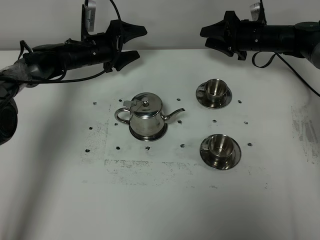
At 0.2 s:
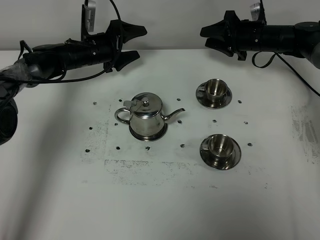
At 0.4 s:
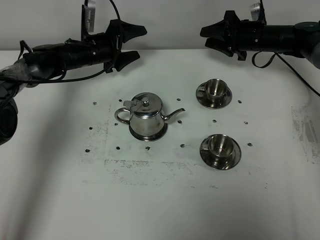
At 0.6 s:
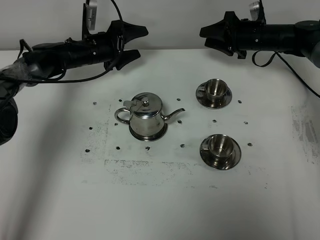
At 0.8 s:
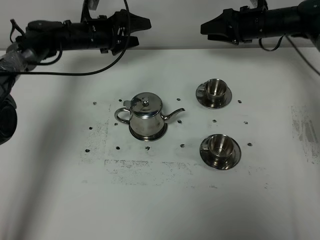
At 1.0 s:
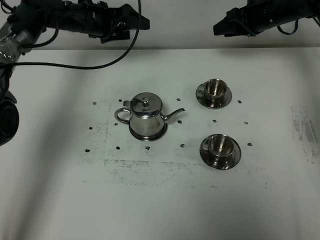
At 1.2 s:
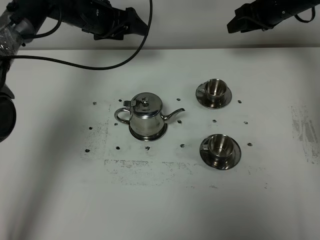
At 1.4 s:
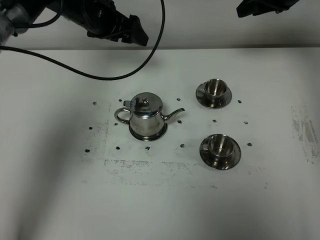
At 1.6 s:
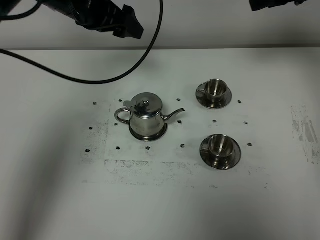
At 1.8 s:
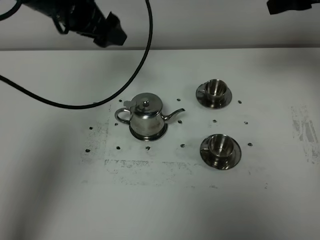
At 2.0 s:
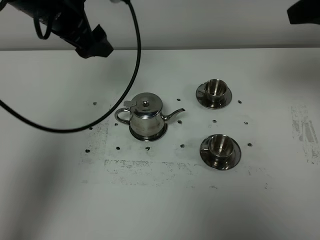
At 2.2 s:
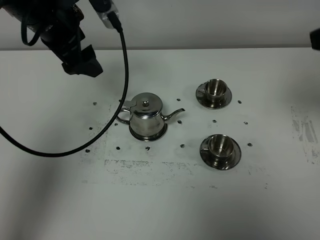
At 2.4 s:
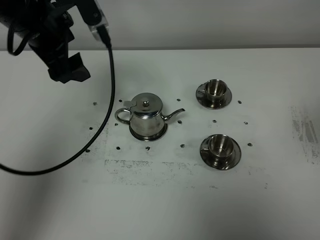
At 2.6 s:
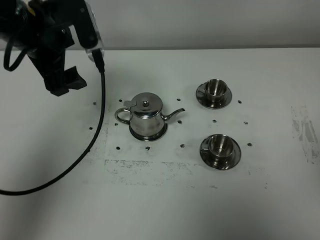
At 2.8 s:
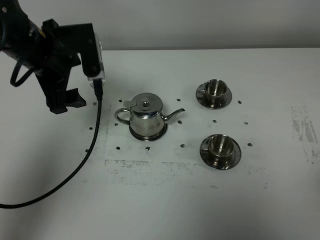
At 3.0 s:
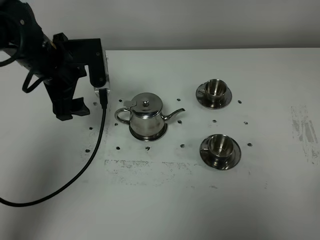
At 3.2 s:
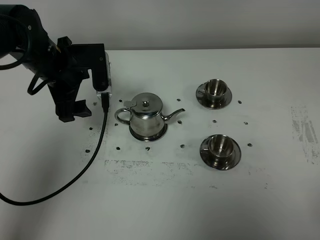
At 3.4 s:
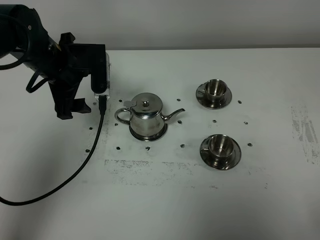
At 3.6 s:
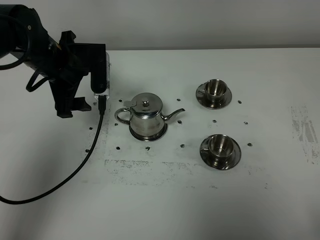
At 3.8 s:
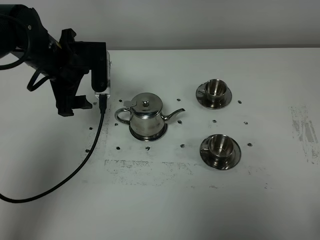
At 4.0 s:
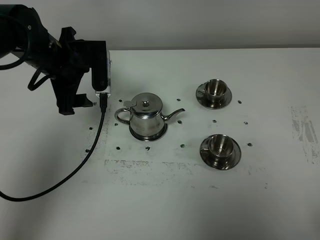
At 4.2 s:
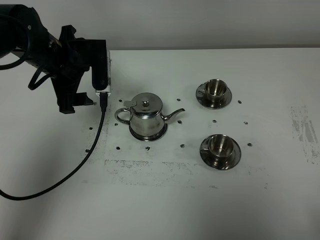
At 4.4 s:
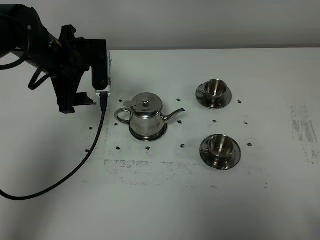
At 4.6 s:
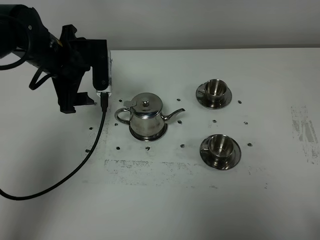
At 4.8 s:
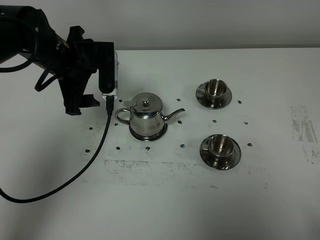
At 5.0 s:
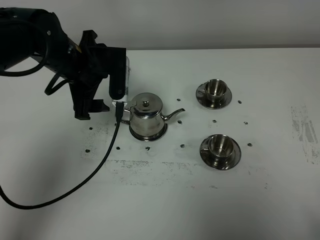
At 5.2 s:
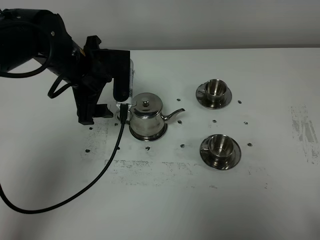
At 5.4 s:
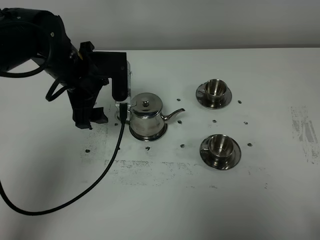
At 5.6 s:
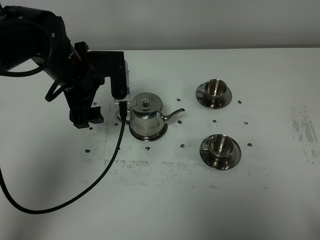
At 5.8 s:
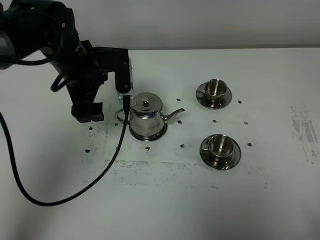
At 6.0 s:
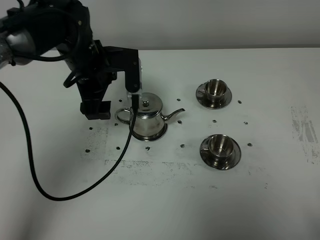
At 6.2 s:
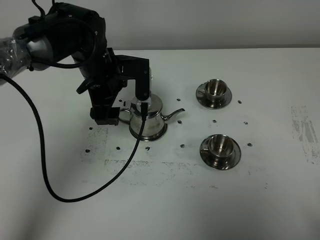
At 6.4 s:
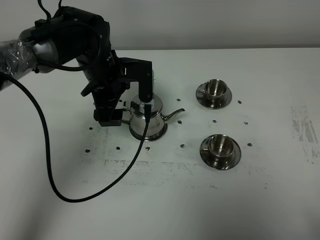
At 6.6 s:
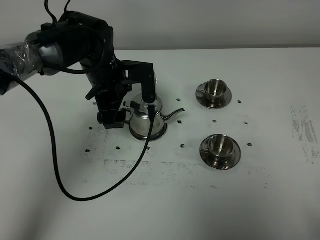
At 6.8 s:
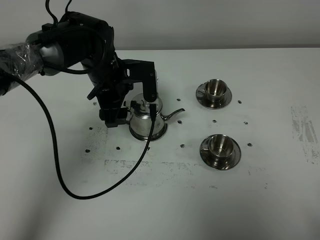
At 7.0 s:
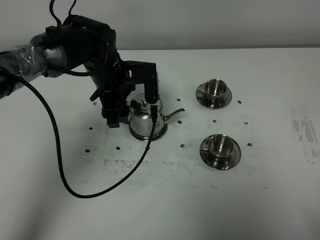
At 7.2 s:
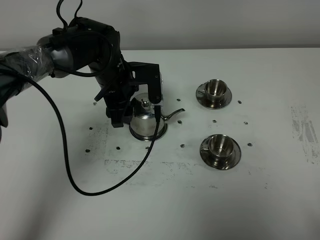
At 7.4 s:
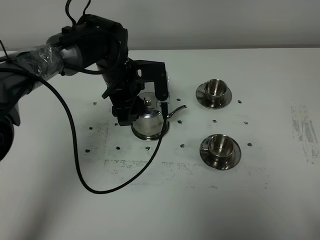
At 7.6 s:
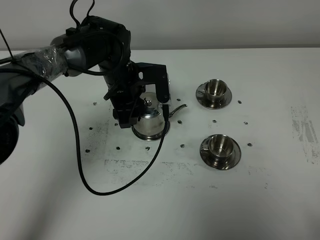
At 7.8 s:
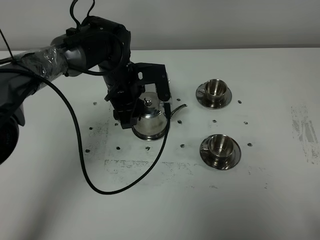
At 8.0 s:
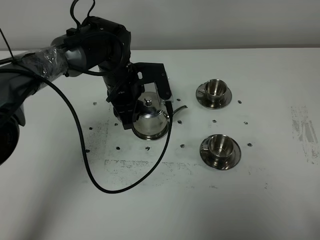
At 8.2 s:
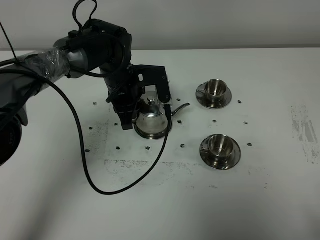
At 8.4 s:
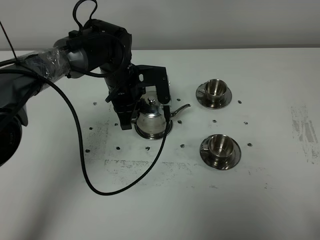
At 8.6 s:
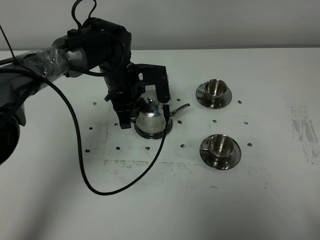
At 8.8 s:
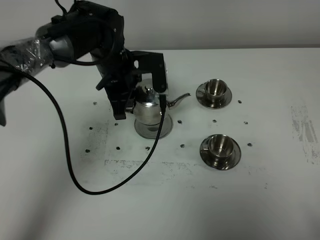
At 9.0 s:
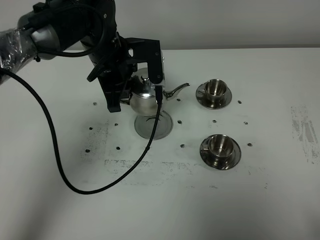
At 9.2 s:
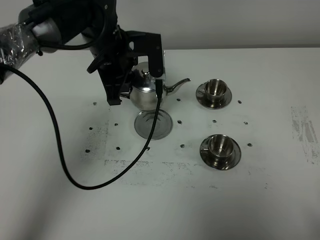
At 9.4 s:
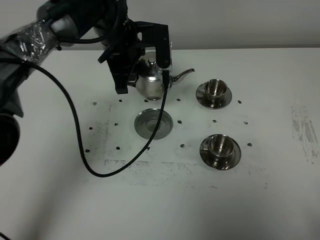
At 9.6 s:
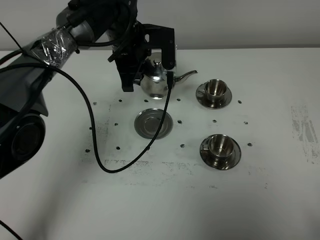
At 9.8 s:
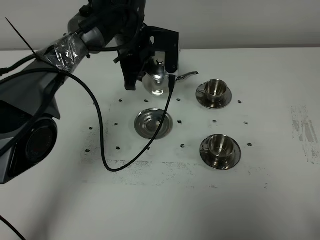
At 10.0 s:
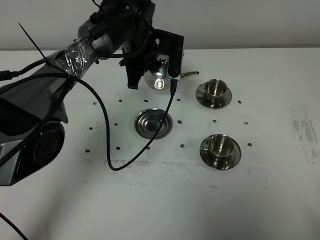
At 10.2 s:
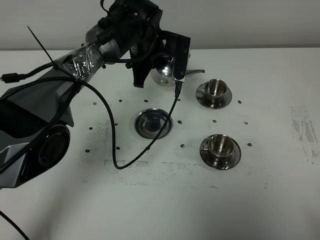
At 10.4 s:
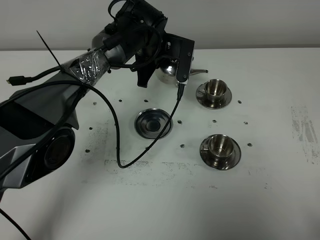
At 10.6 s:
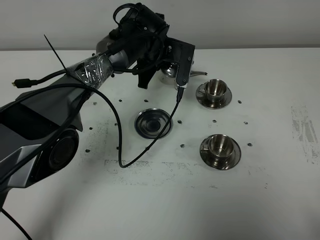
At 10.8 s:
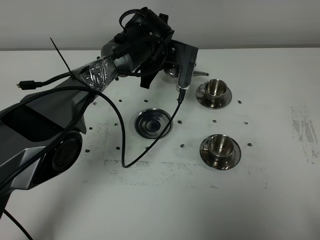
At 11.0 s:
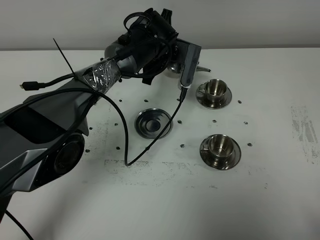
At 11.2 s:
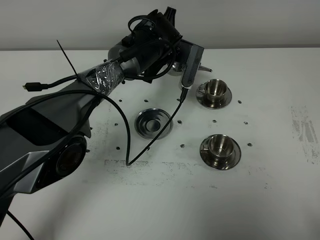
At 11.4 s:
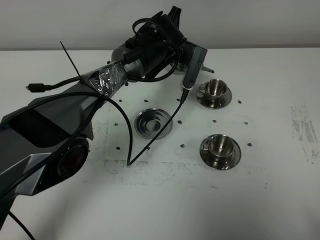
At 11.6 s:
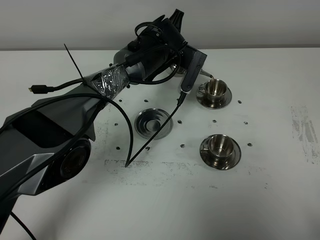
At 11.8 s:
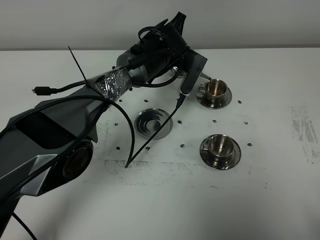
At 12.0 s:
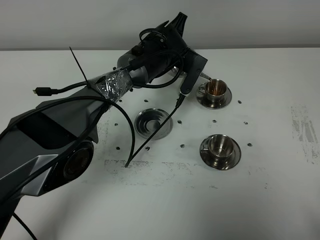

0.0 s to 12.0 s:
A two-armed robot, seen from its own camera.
Task of the whole recording: grasp the stainless steel teapot and pour the tea into the two stainless steel teacups one by one, put the stainless steel teapot back in its original place.
Step, 0.0 to 8.6 s: Pick up the teapot with the left gripper.
0.0 to 1.6 s: Both grippers travel together upward and backward, some 25 cm.
1.6 to 3.0 s: The left gripper moves backward and downward, roughly 10 cm; the right gripper heads backward, covering approximately 40 cm.
4.4 to 6.0 s: The left gripper shifts about 5 cm to the right.
6.0 to 7.6 s: The left gripper is displaced downward by some 5 cm.
7.6 to 9.0 s: The left gripper goes about 5 cm upward, and closes.
9.0 to 10.4 s: The left gripper shifts some 10 cm forward and to the right.

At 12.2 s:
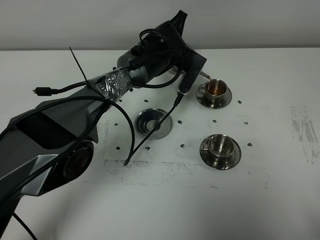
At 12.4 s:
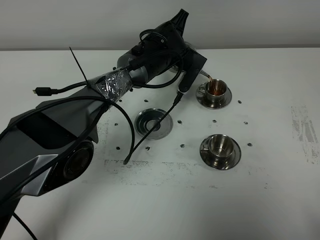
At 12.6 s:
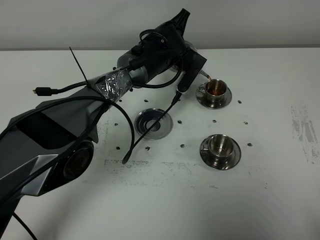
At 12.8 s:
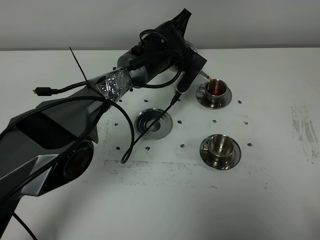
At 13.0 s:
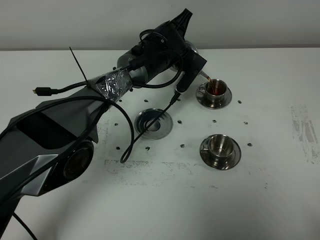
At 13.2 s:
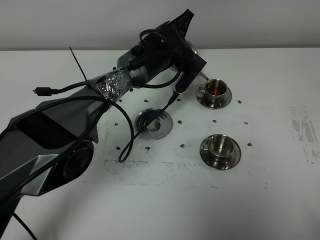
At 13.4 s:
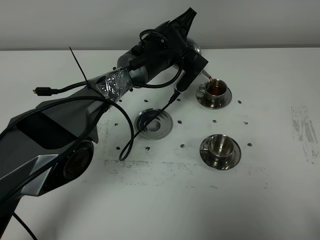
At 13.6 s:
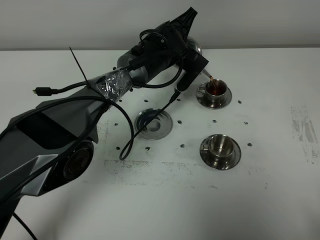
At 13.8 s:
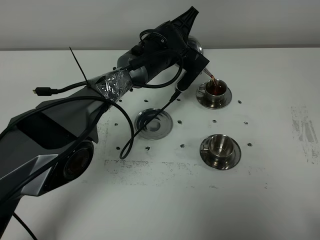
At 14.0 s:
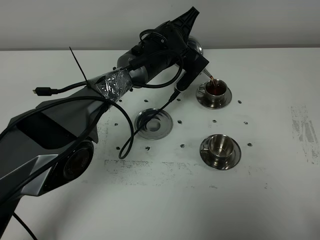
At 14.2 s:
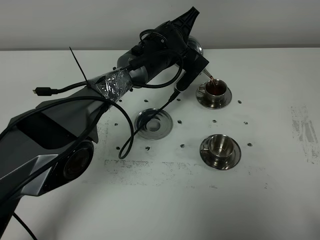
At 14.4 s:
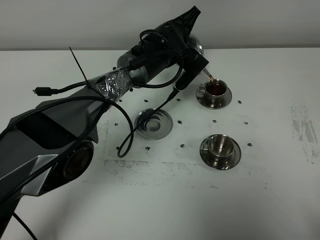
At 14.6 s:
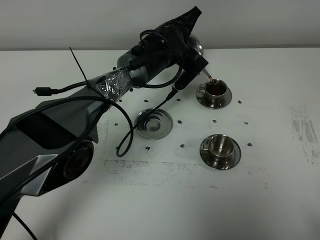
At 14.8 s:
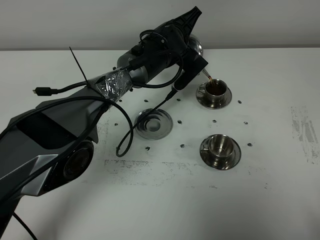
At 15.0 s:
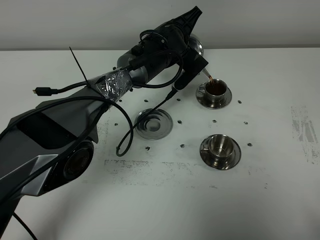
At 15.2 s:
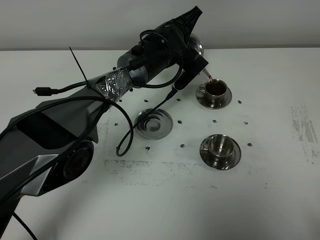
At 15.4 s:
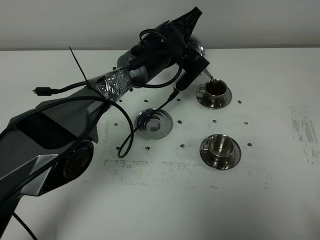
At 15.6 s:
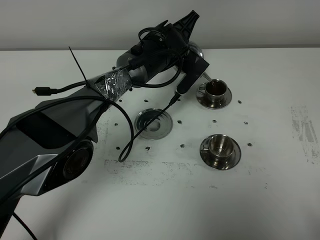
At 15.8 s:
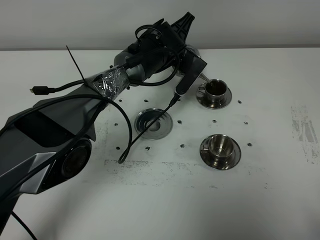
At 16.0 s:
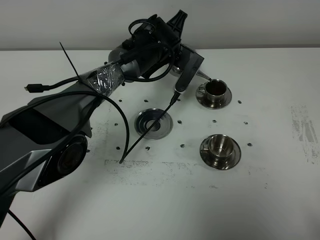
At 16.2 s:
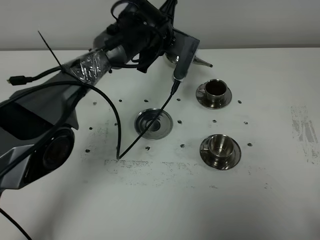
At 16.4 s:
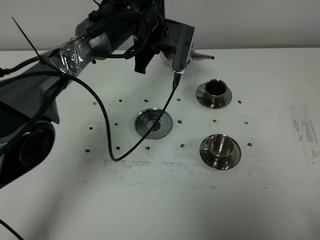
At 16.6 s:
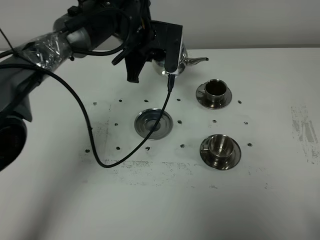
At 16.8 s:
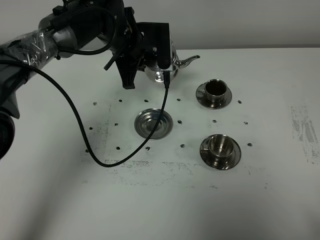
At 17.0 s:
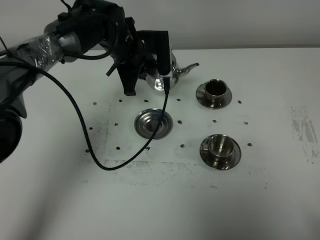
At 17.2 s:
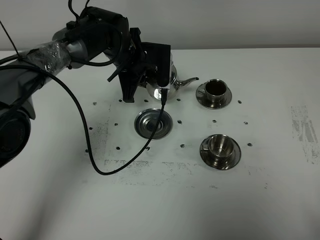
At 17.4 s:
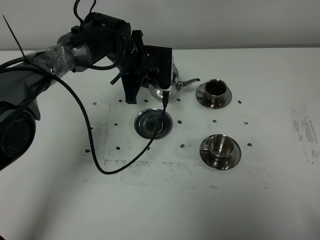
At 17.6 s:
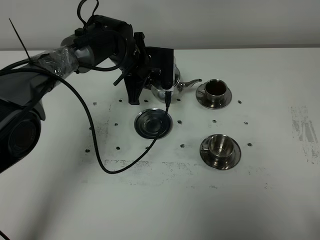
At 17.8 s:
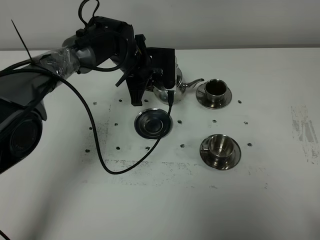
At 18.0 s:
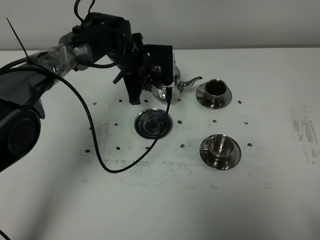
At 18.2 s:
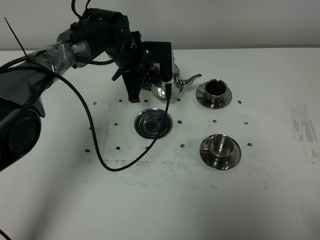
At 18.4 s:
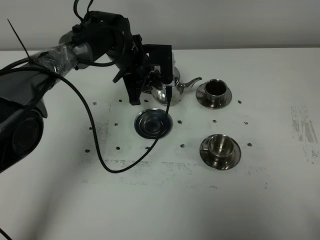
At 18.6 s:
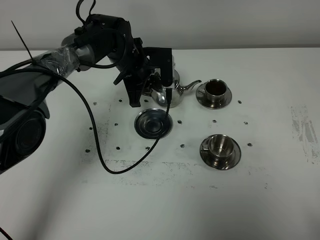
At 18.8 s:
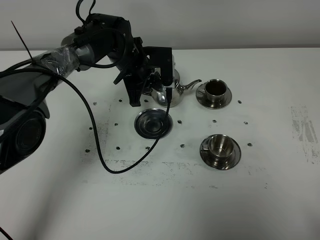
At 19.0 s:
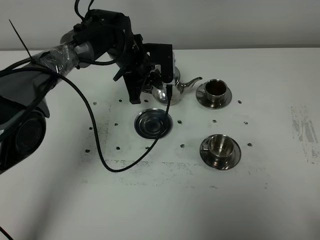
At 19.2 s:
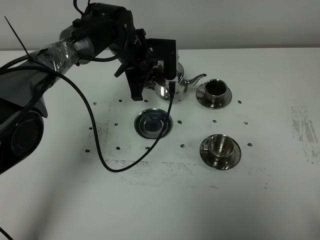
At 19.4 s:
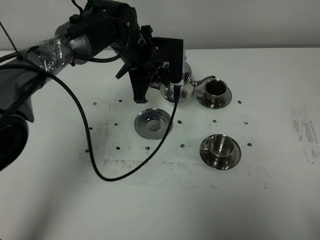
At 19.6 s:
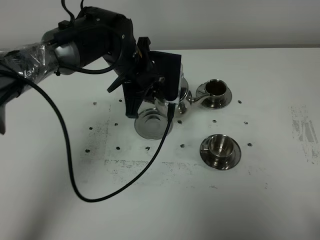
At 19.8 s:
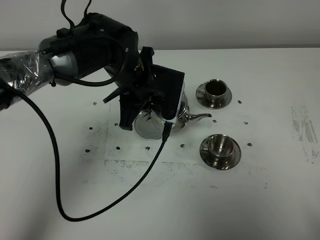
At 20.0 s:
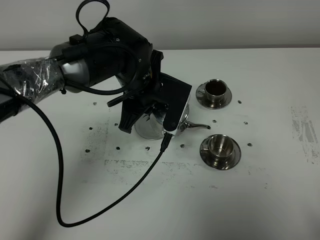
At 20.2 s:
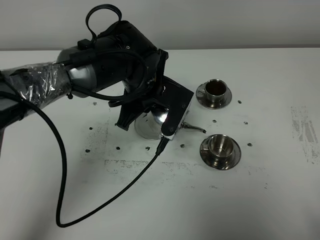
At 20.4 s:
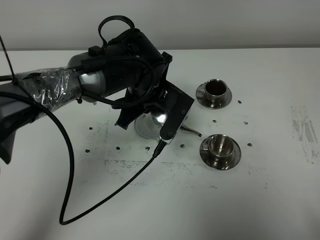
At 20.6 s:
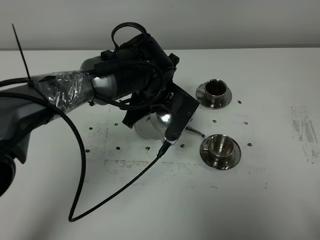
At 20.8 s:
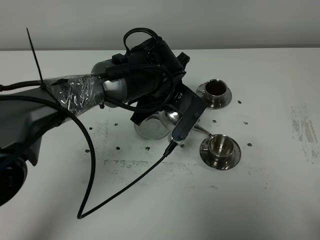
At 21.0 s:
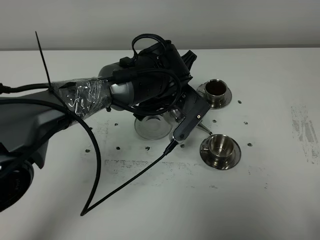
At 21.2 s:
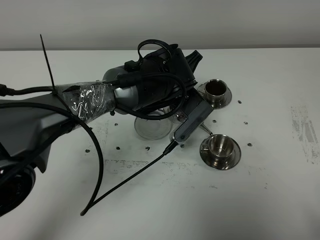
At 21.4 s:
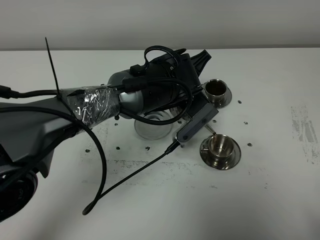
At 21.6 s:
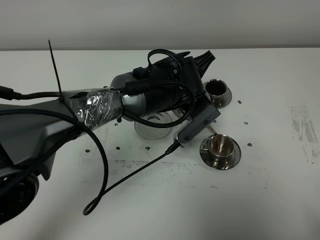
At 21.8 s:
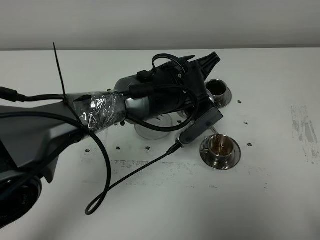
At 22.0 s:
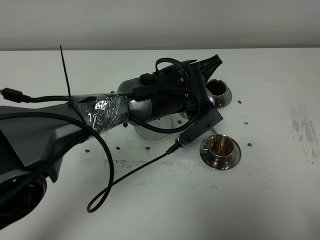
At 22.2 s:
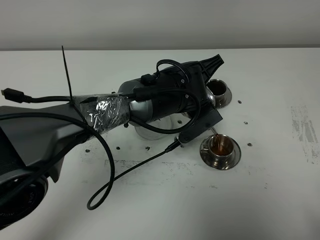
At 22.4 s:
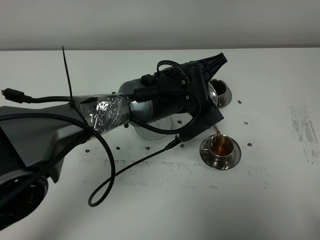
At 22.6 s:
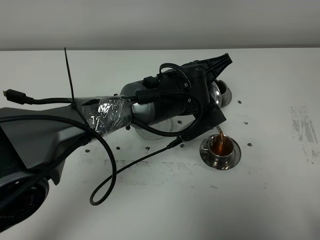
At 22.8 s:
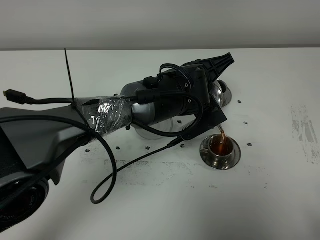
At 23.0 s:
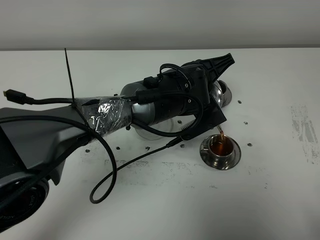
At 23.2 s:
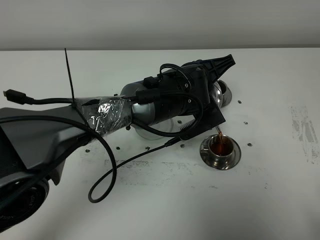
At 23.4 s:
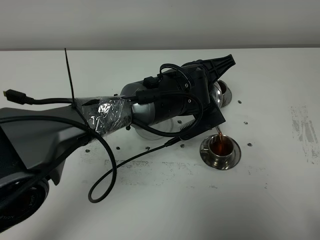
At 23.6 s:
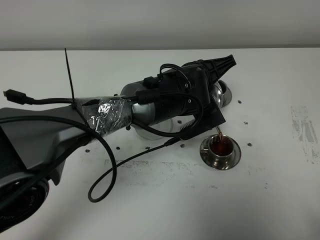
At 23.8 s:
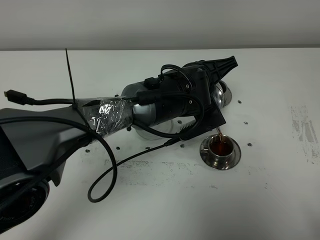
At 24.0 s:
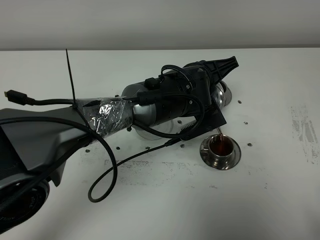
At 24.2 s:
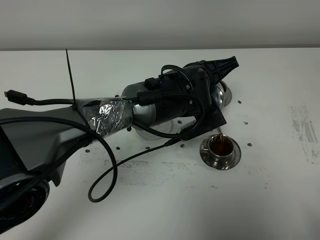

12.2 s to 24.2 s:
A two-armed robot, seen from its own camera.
Task of the whole recording: grasp the stainless steel teapot and pour the tea into the two stainless steel teacups one by one, put the stainless steel teapot back in its original place.
12.2 to 15.2 s: The grippers stay close to where they were, moving slightly.
15.2 to 16.6 s: The left gripper moves to the left, some 10 cm.
16.6 to 18.2 s: The left gripper goes approximately 5 cm downward.
18.2 to 19.8 s: The left gripper travels backward and upward by some 10 cm.
19.8 to 21.2 s: The left gripper travels to the right by about 5 cm.
22.6 to 24.2 s: There are only small adjustments of the grippers.
